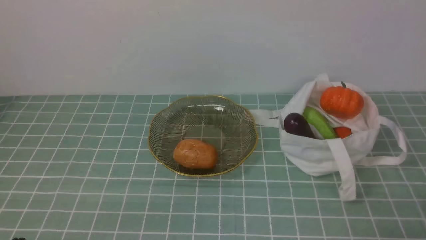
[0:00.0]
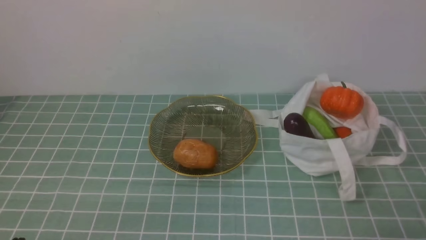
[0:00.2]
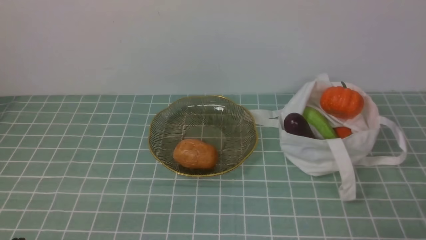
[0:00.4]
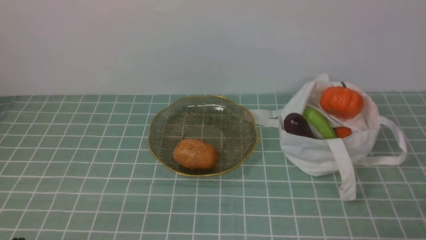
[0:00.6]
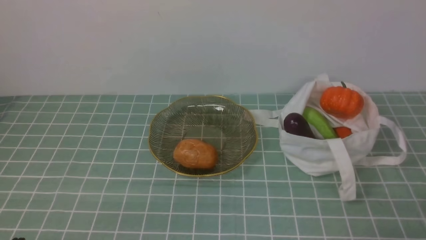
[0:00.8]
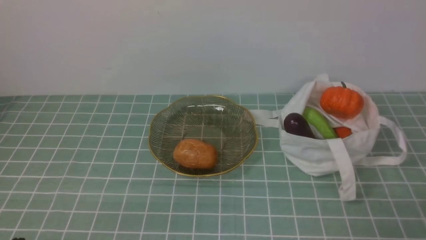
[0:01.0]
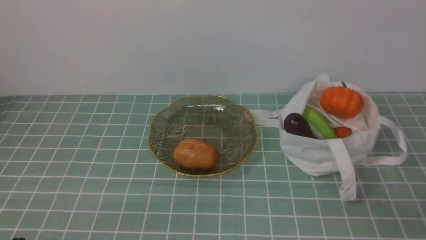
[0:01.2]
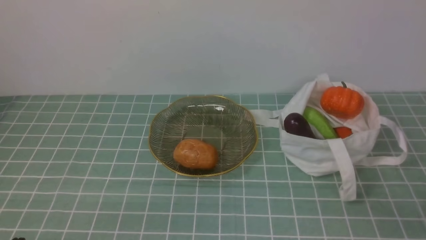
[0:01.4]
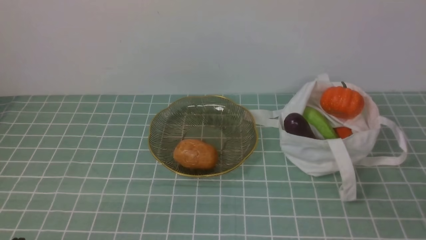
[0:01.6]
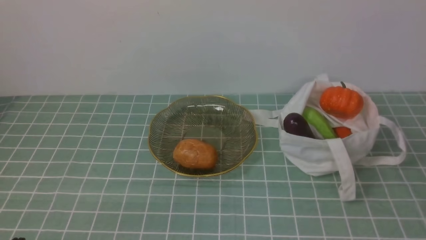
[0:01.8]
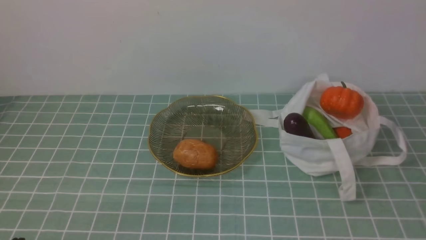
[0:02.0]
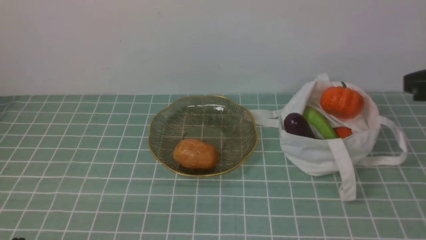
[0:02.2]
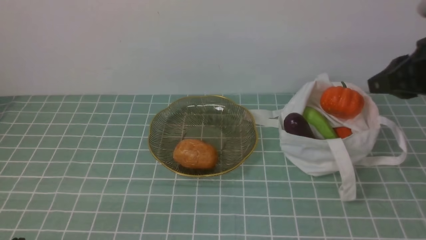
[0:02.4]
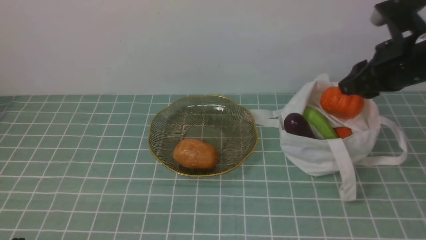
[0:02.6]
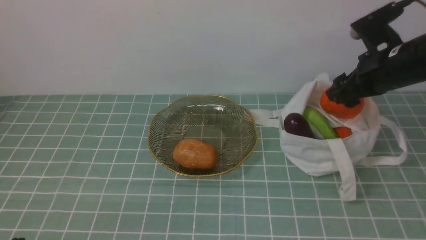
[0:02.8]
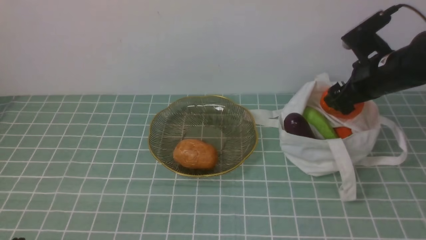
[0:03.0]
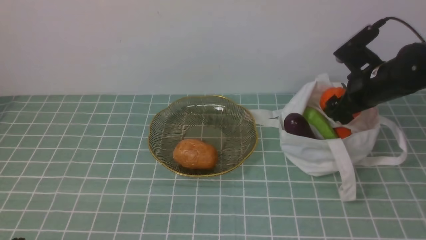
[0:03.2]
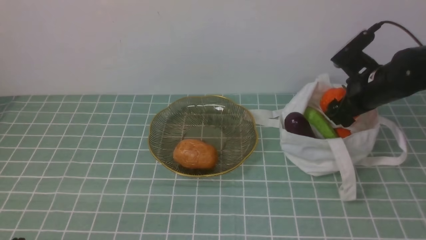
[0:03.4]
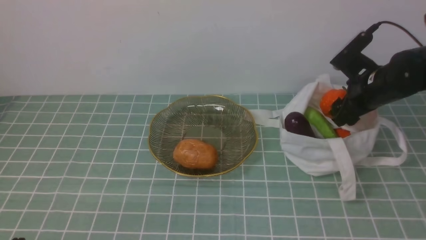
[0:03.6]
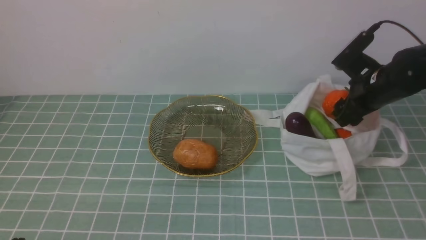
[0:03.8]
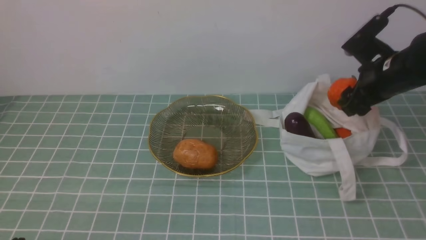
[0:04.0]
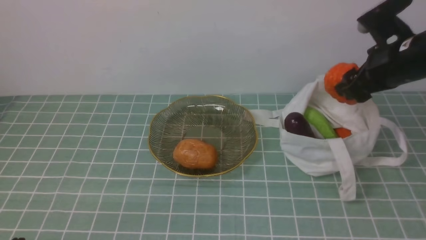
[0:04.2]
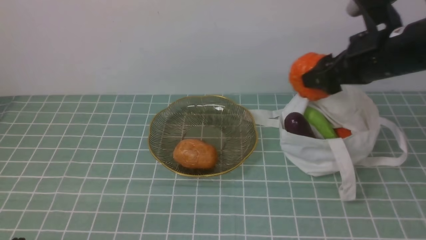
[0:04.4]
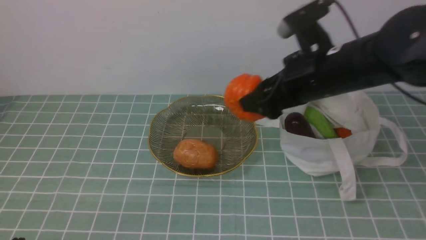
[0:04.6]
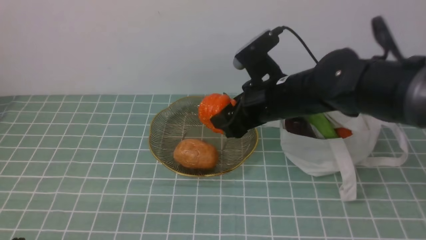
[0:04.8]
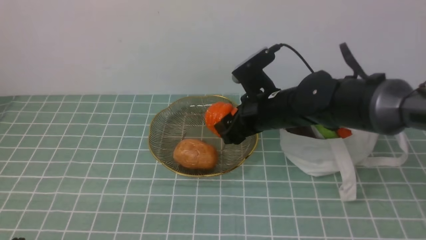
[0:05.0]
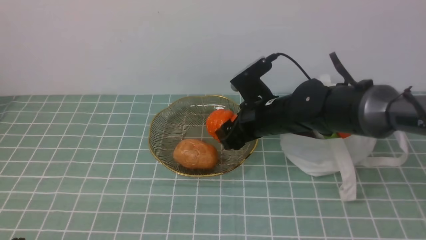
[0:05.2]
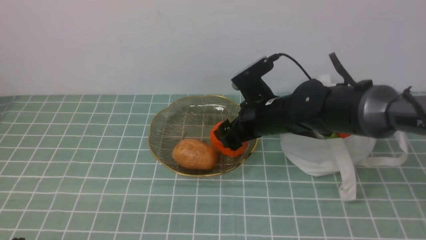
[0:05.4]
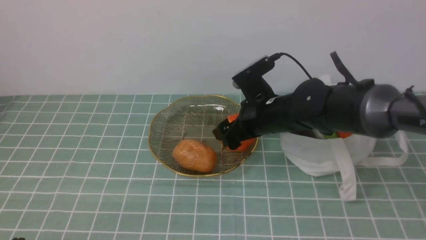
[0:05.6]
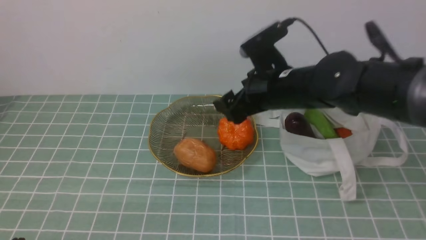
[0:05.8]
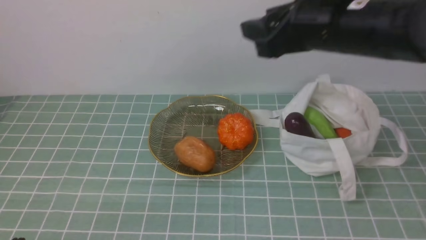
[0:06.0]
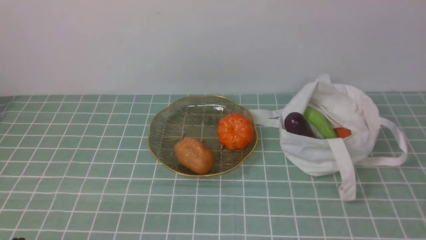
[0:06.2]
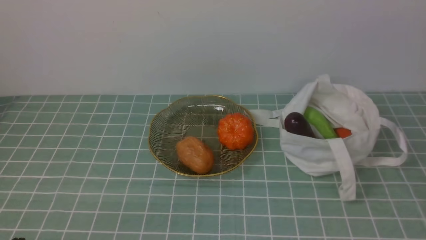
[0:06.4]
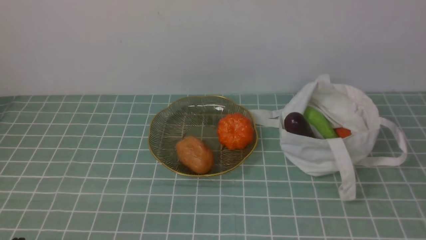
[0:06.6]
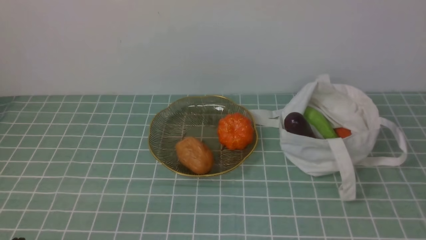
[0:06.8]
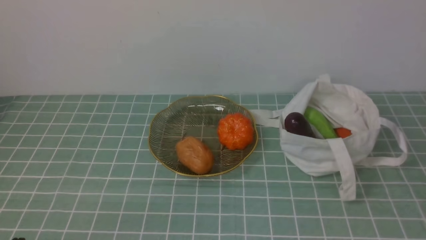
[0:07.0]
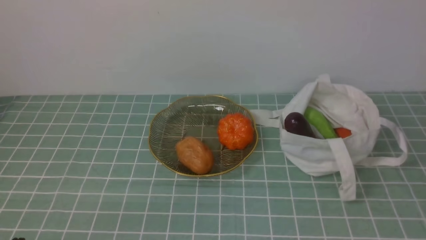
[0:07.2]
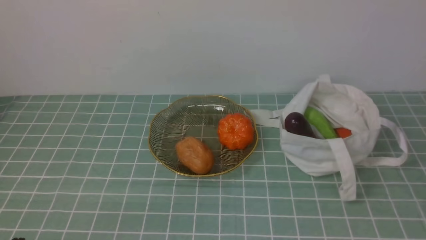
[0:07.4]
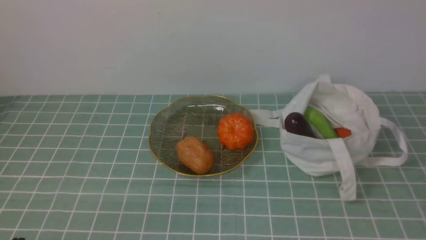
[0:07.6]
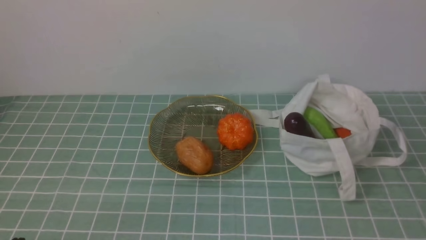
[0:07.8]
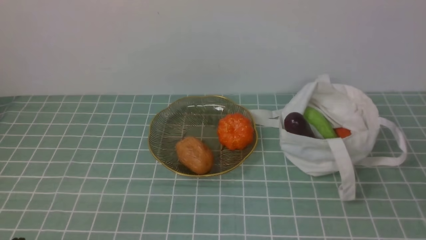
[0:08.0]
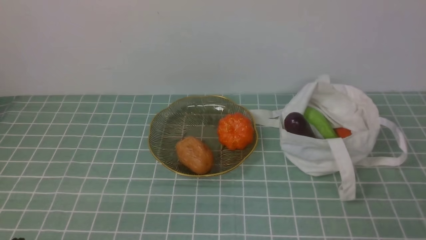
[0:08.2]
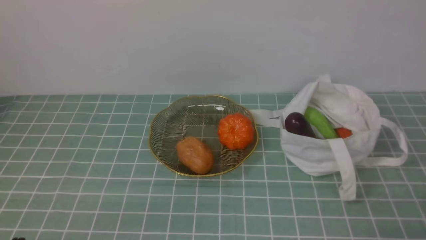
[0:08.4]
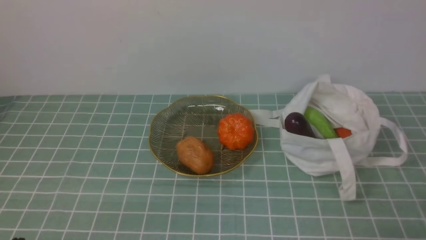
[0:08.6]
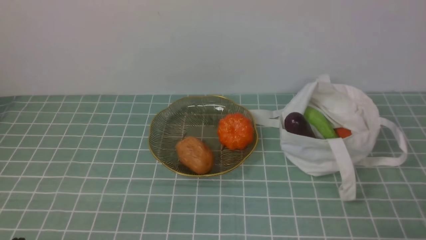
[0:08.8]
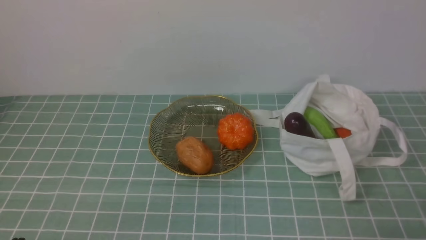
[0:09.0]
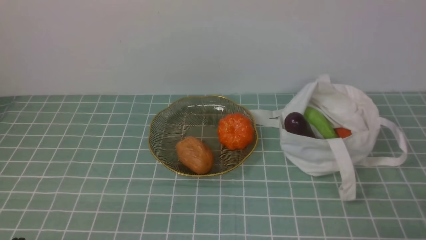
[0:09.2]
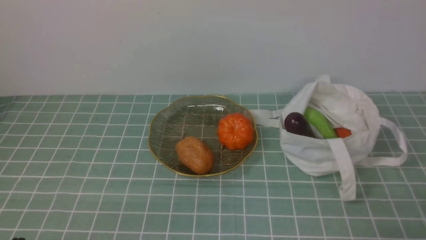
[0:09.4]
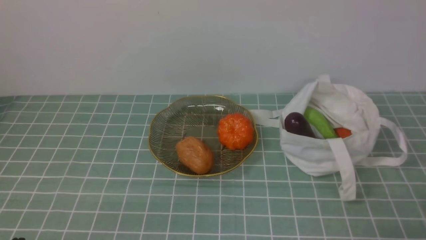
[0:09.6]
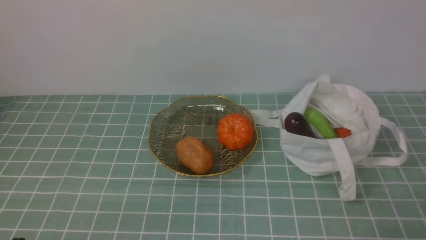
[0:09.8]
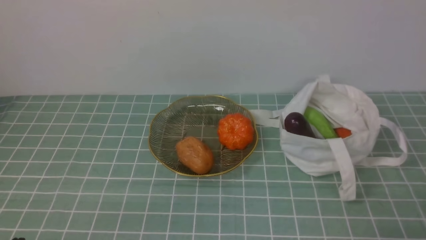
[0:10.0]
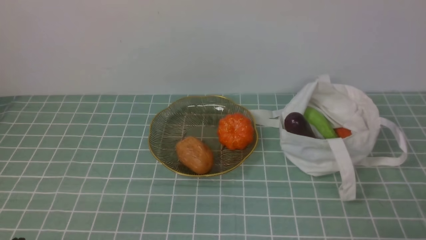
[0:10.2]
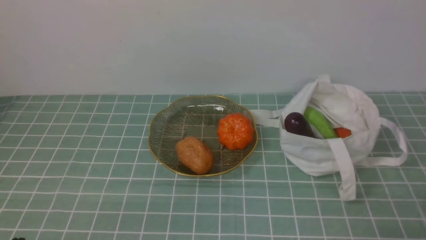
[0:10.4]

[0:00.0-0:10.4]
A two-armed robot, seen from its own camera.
Task of the whole recording: take vegetables from cloth bag on blue coffee tablecloth place on plate.
Step, 0:00.0 to 0:03.6: Grasp the pumpkin with right gripper.
Step, 0:03.8 to 0:05.6: Place the pumpkin on the plate with right gripper.
0:01.4 to 0:03.0: The right gripper moves forward, about 30 cm, and opens its fingers.
0:03.0 to 0:04.4: The right gripper moves about 5 cm.
0:04.4 to 0:06.0: The right gripper goes about 10 cm to the left, and goes downward and returns, approximately 10 cm each way.
0:06.0 to 0:07.4: The right gripper moves backward and to the right, roughly 25 cm, and closes.
0:09.0 to 0:10.4: Both grippers stay put.
